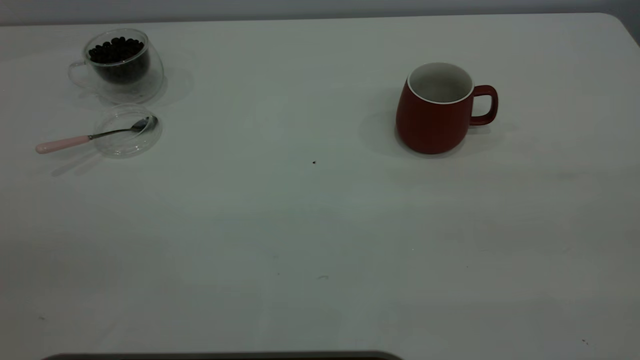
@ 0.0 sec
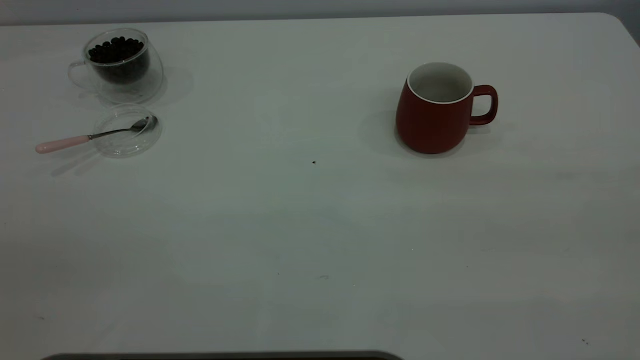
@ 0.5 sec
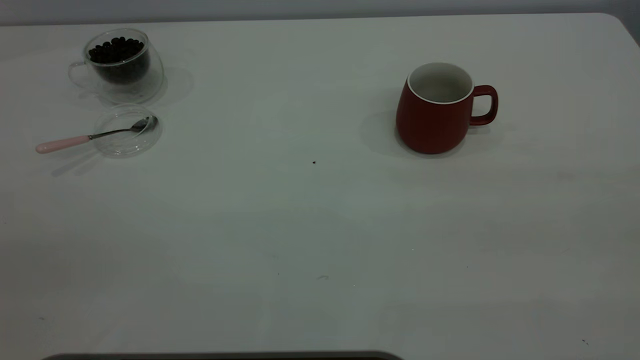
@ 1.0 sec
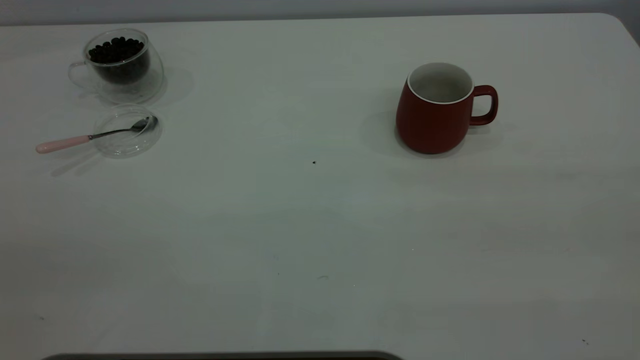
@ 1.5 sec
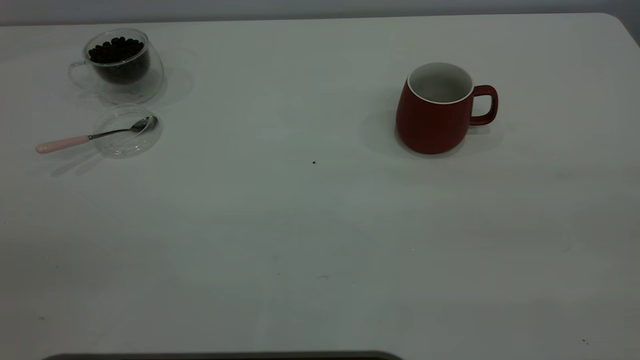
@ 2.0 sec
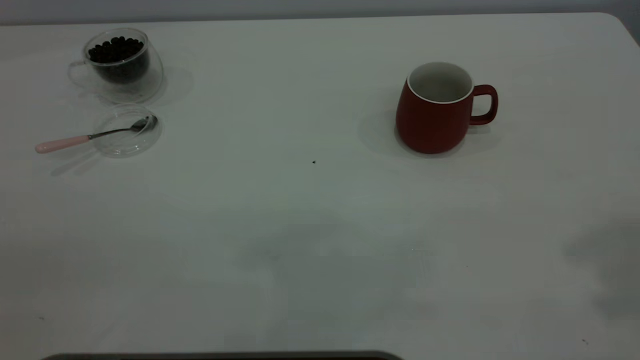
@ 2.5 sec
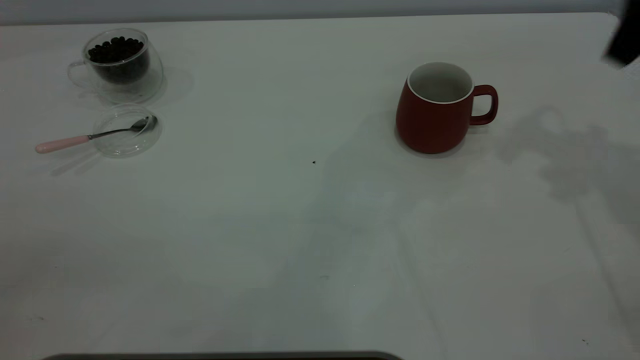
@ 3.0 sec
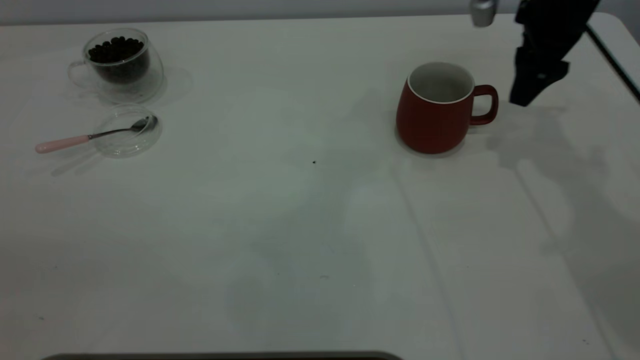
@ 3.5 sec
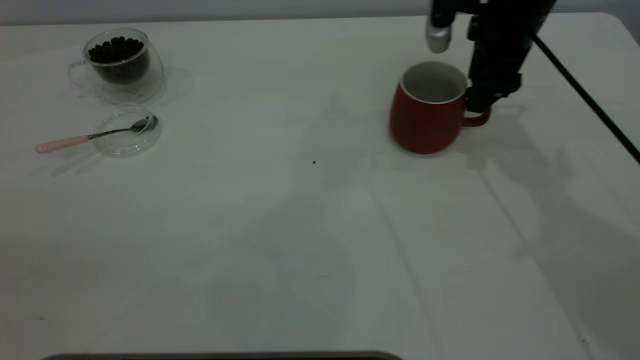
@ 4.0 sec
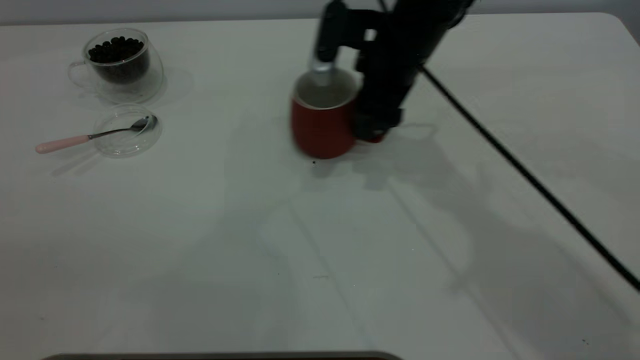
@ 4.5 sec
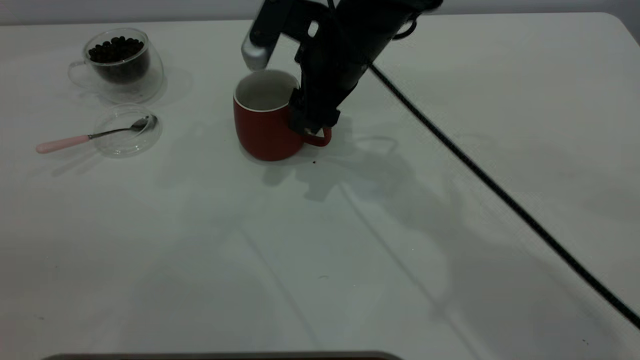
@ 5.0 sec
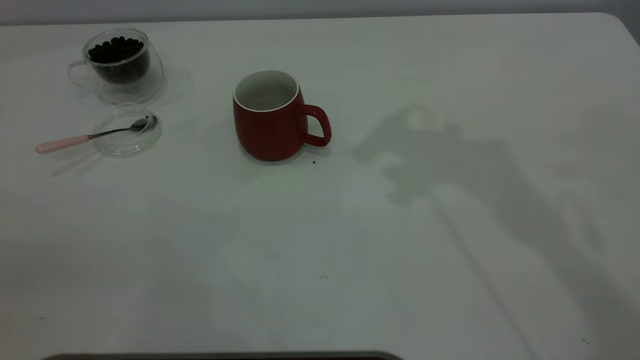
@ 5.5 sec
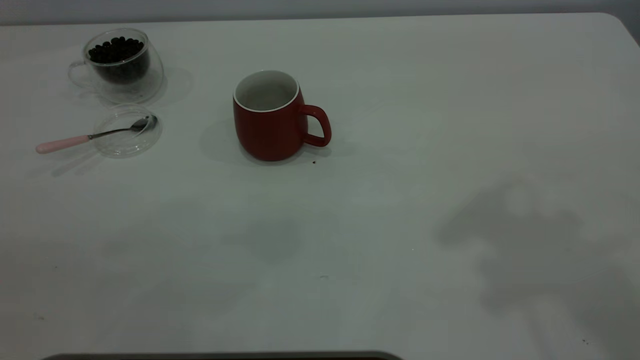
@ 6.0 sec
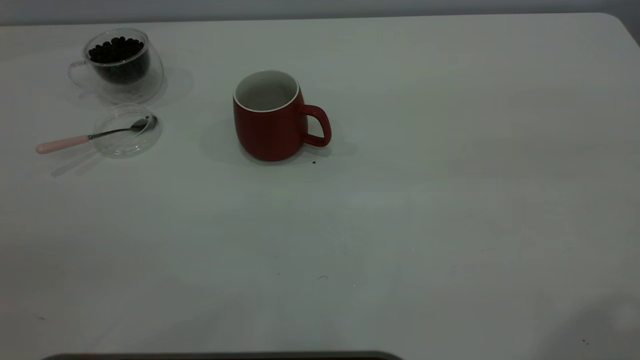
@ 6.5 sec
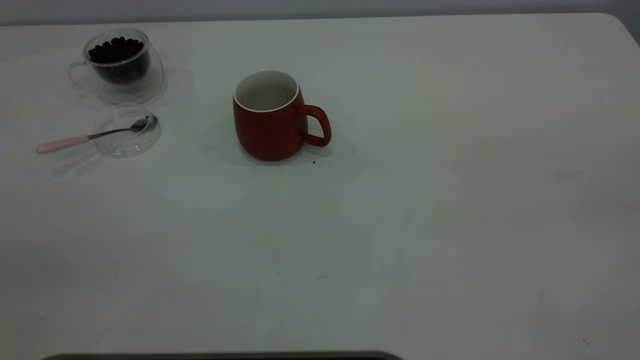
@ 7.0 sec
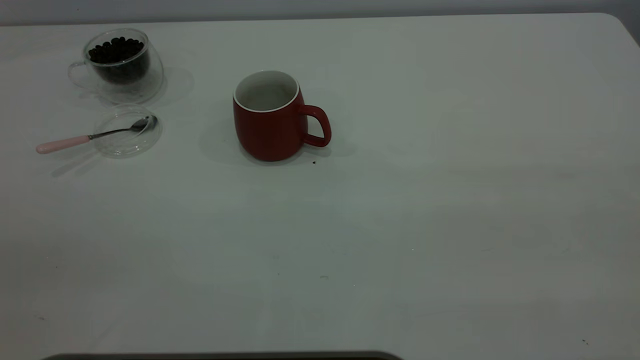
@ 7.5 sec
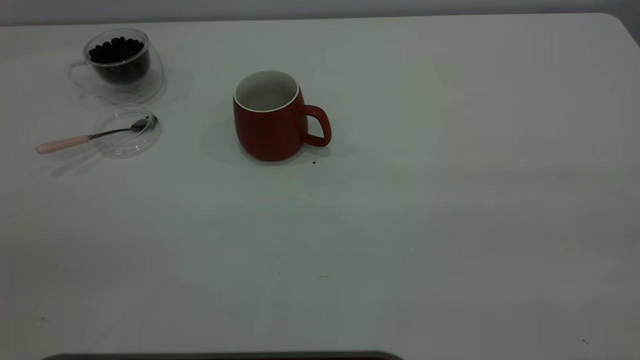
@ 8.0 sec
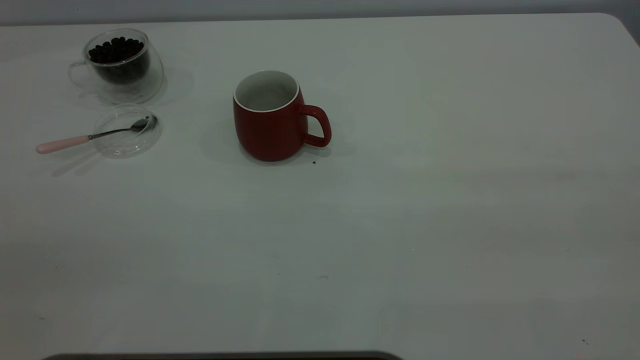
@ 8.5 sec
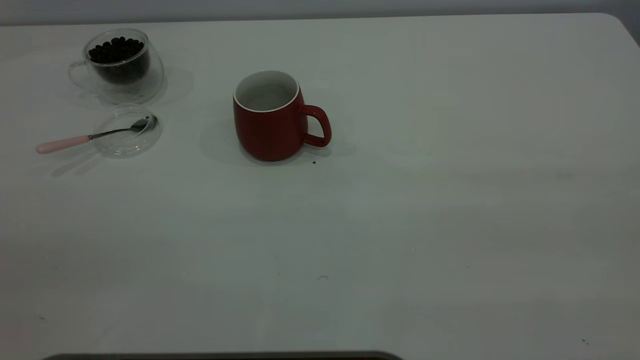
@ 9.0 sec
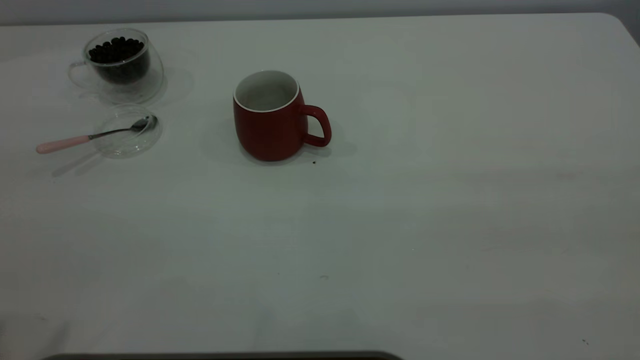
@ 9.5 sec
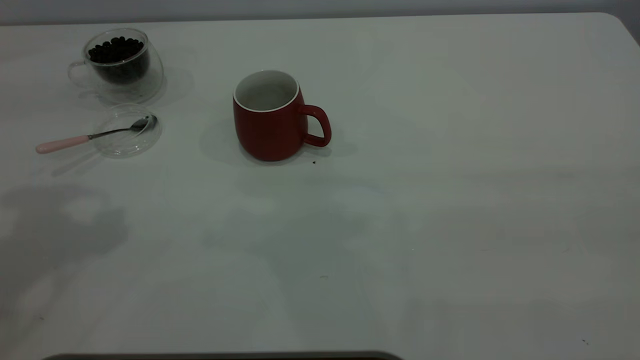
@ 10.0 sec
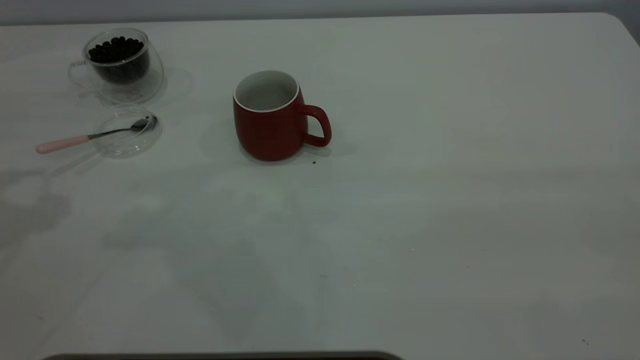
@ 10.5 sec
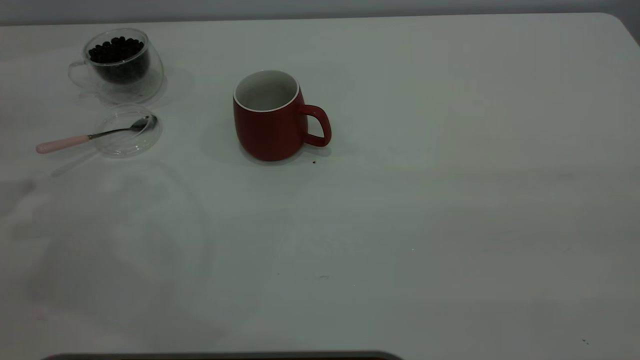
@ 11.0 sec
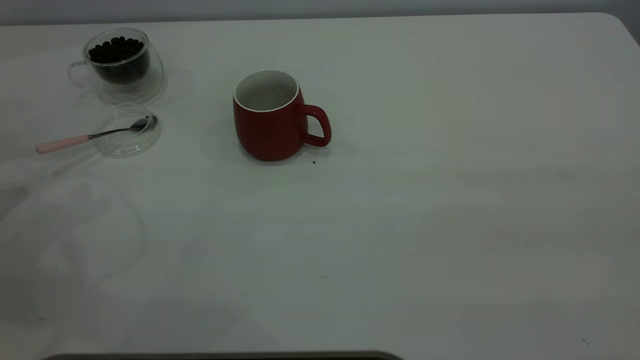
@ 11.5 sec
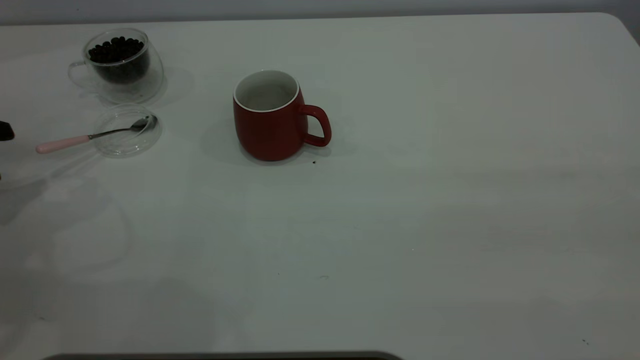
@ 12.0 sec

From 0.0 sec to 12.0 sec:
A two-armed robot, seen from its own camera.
Task of the whole recording: the right gripper place the red cup in the center of the table, the left gripper take the pink spoon from the cup lid and scoop out the coffee beans from the coffee cup and put them into the red cup, the left gripper put the spoon back into the cup lid.
Step, from 0.0 sec to 5.0 sec: Move the cup to the center of view.
From 0.0 sec to 2.0 sec: The two grippers keep their place.
From 2.0 sec to 4.0 sec: The right gripper moves forward and downward, about 50 cm.
From 4.0 sec to 6.0 sec: The right gripper travels upward and backward by approximately 35 cm.

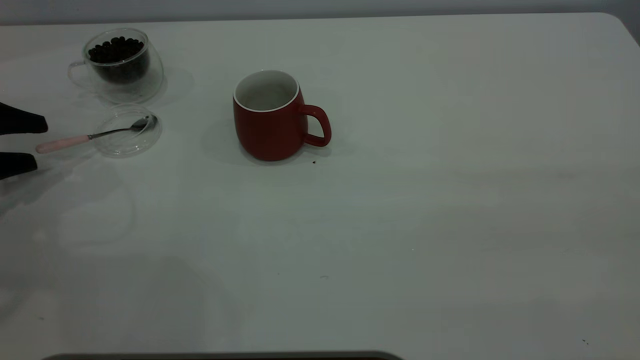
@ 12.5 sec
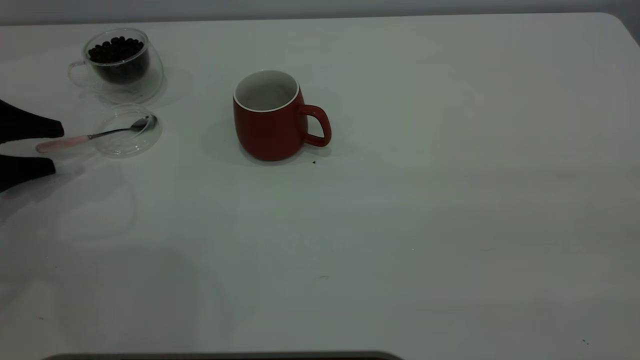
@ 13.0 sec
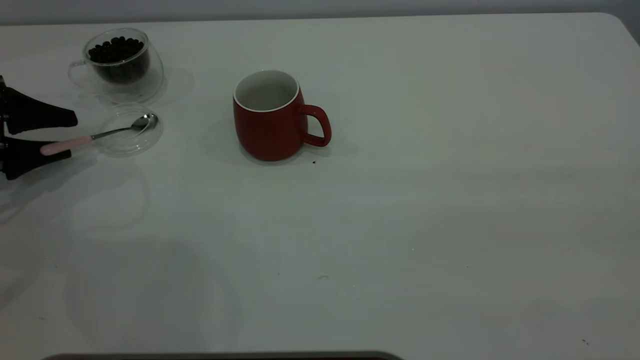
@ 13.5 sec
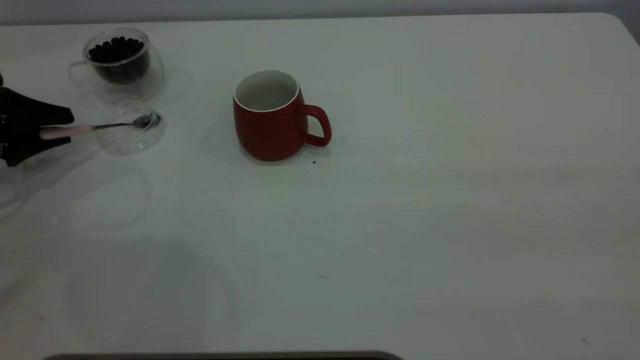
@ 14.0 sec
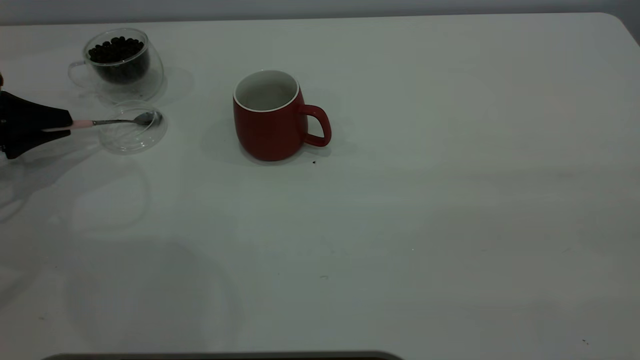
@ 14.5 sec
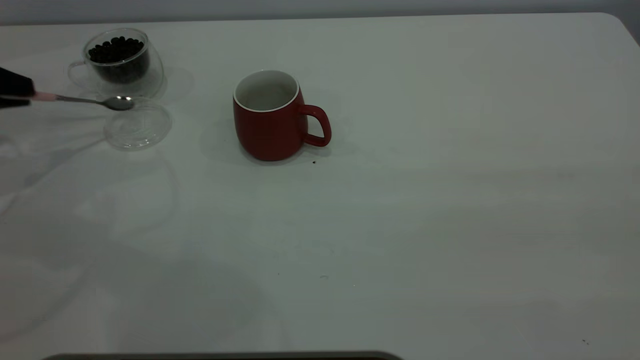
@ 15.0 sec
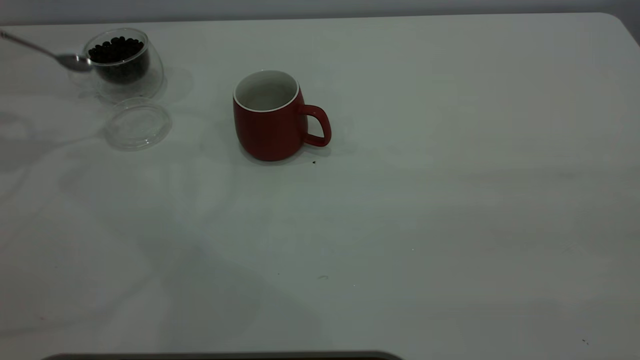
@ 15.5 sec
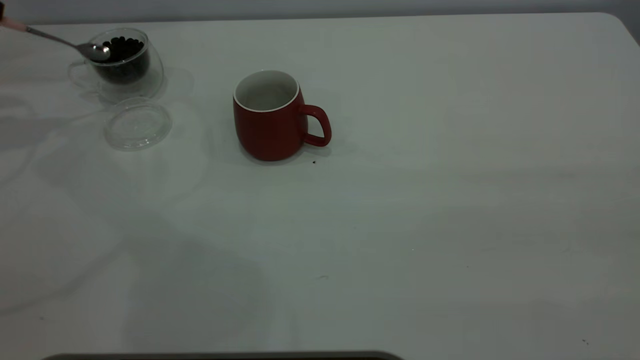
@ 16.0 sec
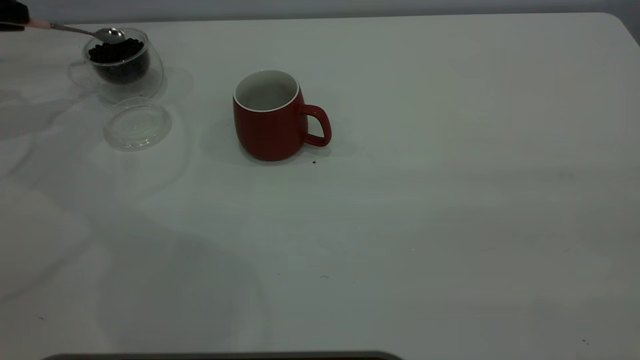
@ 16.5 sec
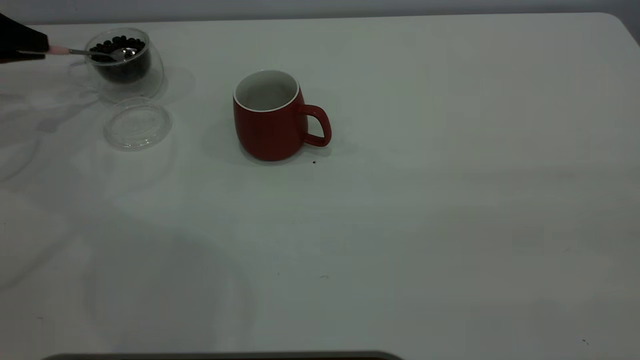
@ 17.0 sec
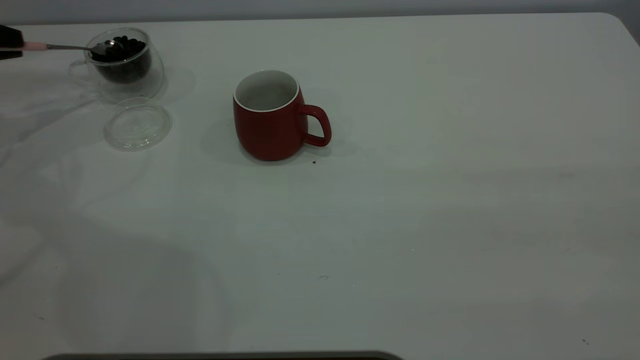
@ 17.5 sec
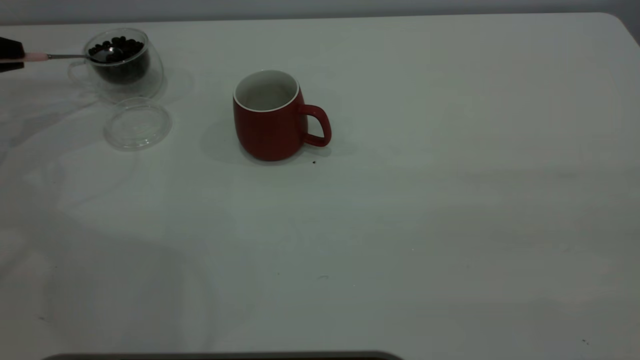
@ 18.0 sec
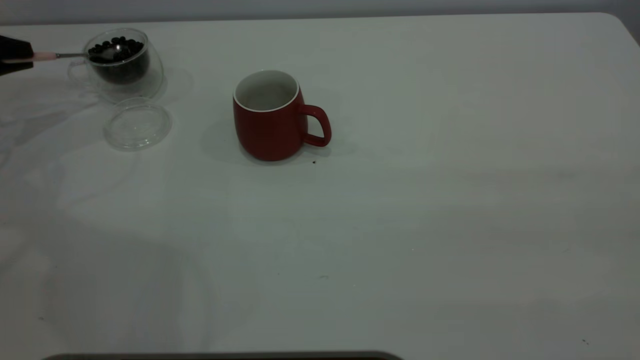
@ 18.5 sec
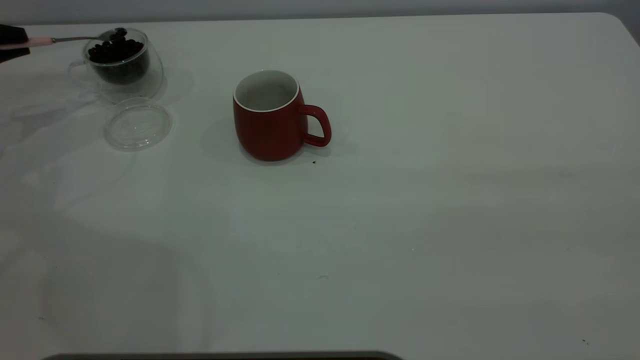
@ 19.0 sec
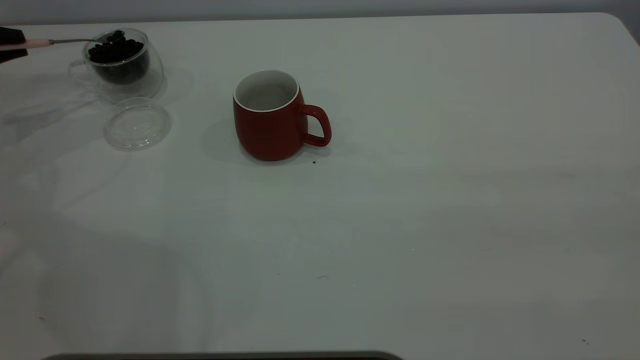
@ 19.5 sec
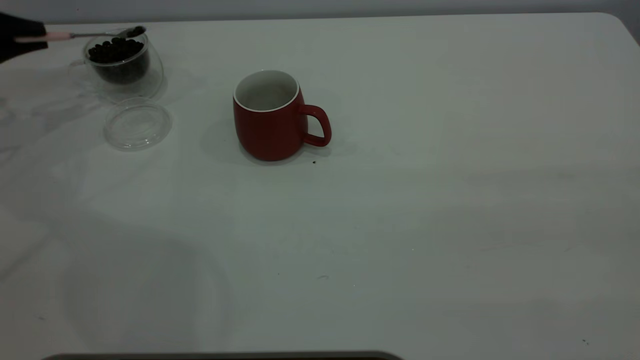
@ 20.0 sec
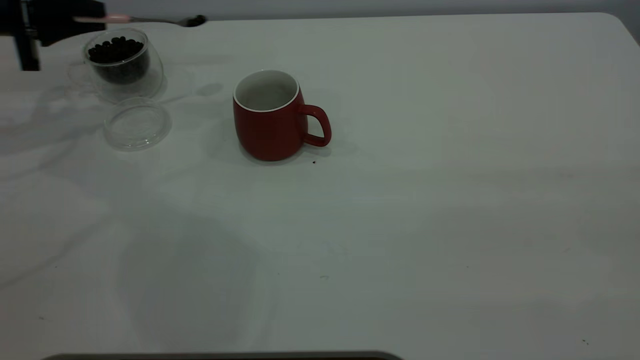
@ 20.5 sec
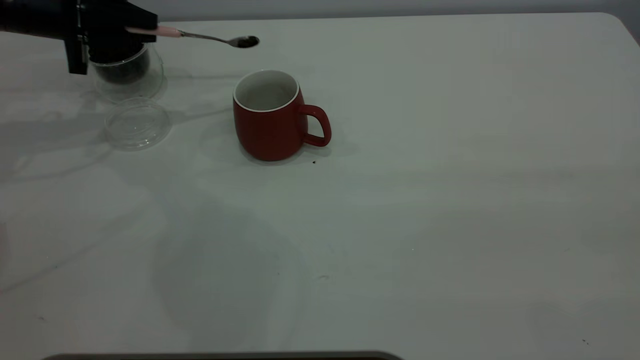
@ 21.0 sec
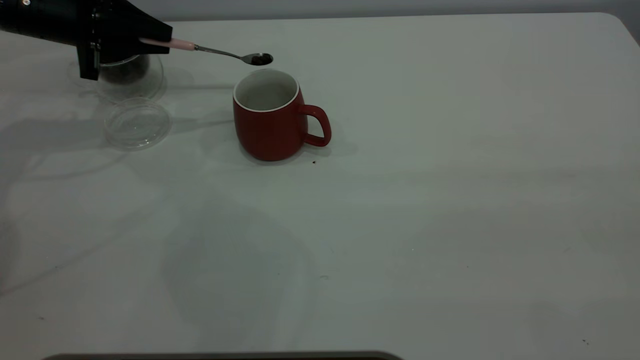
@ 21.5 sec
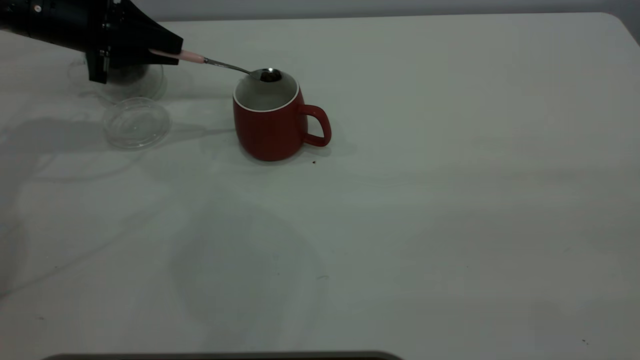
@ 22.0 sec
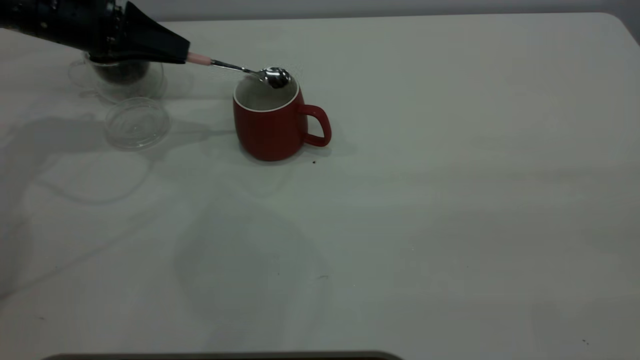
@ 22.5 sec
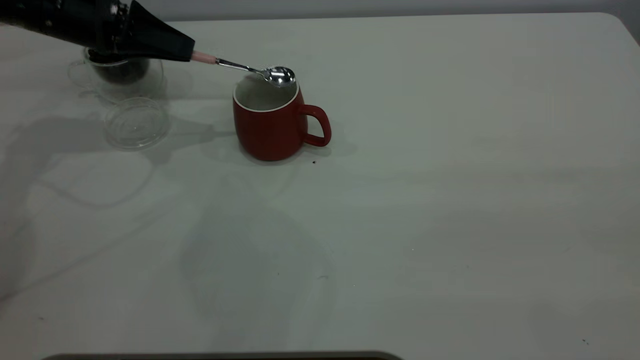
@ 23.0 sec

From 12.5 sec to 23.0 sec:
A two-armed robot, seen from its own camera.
Task of the whole recording: the right gripper place the red cup in the center of the table, the left gripper take the pink spoon from the cup lid and scoop out the coffee beans from the coffee cup and put them into the red cup, the left gripper put the spoon back into the cup lid.
Step, from 12.5 sec to 15.0 sec: Pick up the spoon.
From 12.5 sec to 14.5 sec: The left gripper closes up.
From 14.5 sec to 16.5 sec: The left gripper goes some 15 cm upward and forward.
From 16.5 sec to 19.0 sec: The left gripper travels downward by roughly 5 cm.
From 19.0 sec to 21.0 sec: The left gripper goes some 15 cm to the right.
